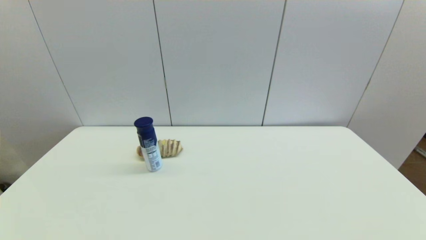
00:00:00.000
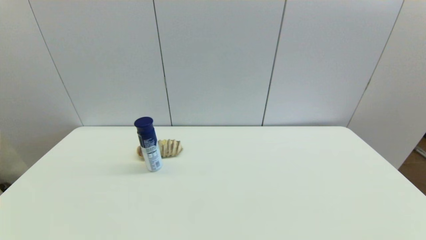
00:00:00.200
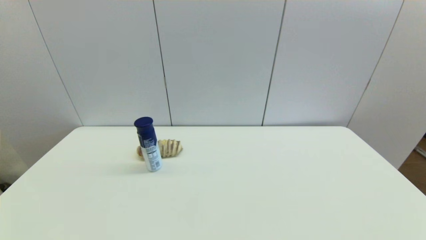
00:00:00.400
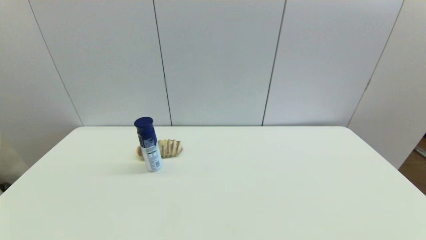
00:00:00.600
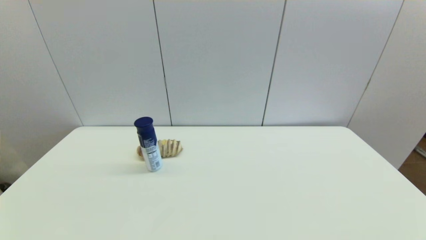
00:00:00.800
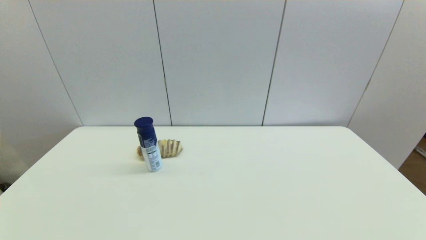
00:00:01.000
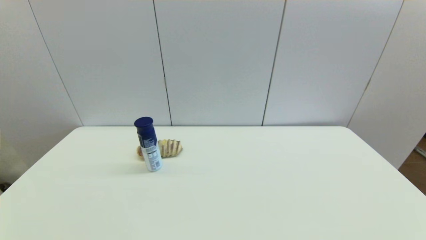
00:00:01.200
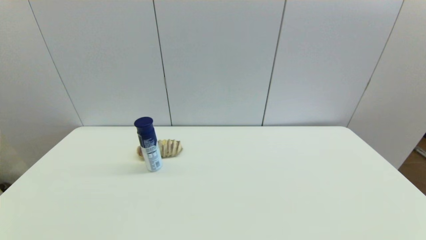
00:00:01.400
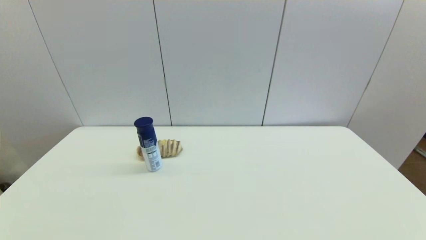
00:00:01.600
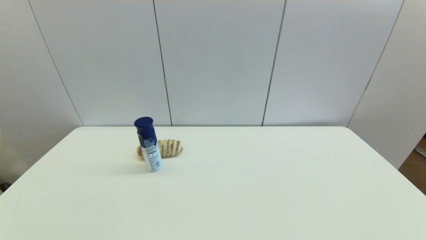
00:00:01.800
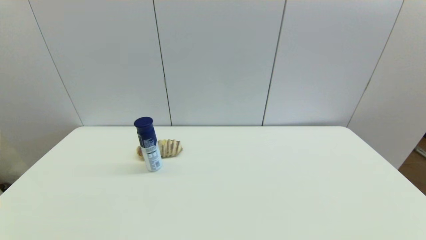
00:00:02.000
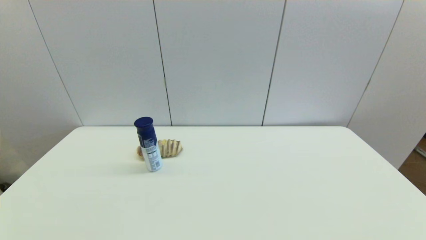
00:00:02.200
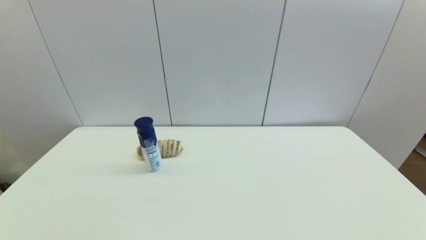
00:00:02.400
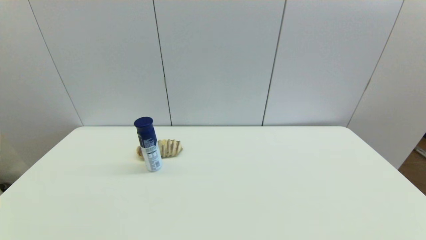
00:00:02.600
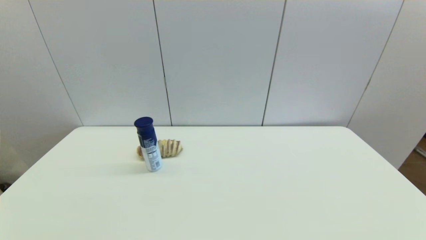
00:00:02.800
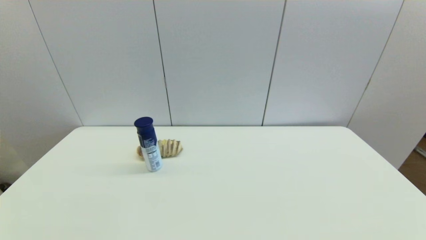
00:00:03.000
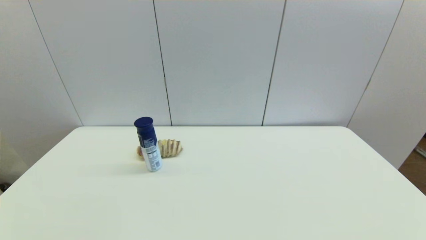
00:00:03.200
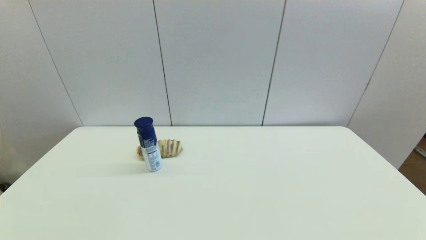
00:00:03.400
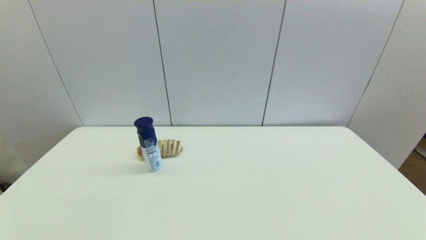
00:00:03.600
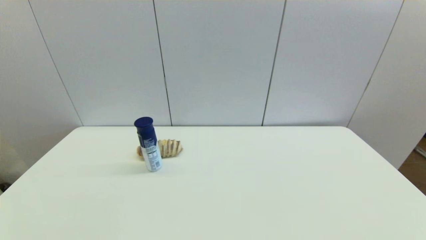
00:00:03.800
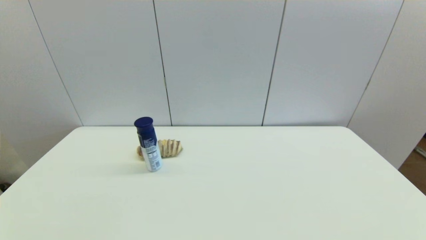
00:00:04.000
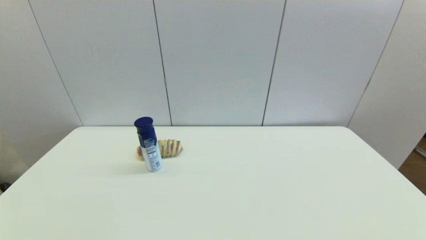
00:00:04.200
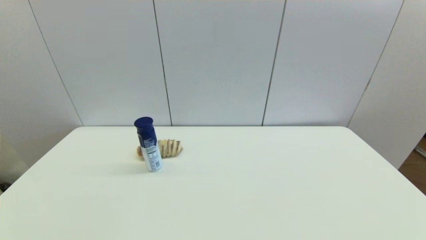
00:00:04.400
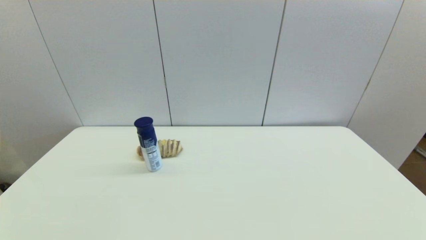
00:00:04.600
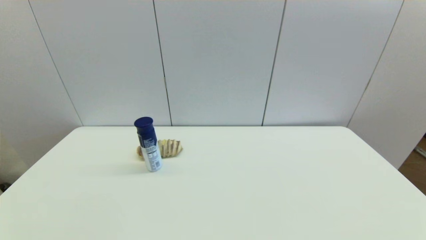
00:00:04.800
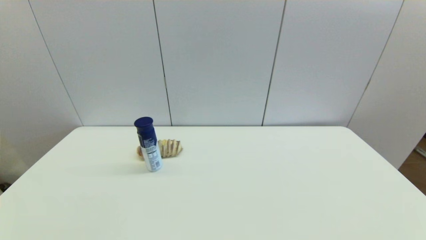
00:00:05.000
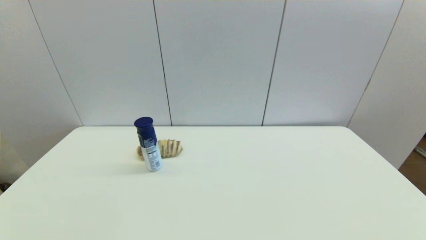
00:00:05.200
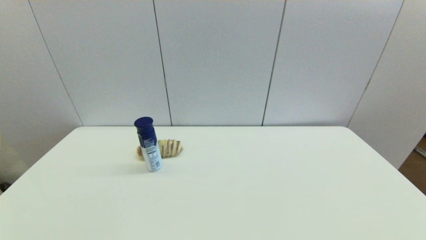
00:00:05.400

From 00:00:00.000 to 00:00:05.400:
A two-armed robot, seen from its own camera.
From 00:00:02.800 to 00:00:05.400: The two grippers keep their place.
